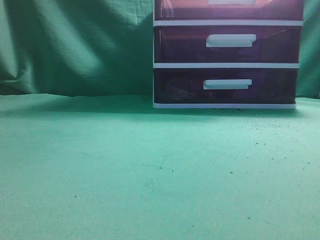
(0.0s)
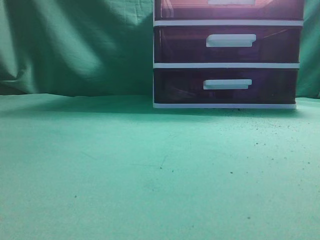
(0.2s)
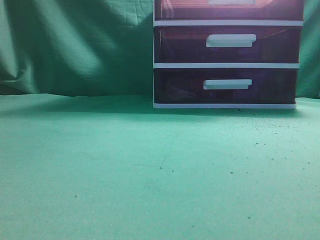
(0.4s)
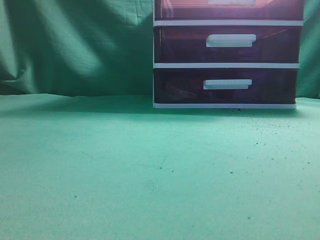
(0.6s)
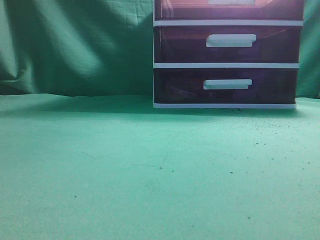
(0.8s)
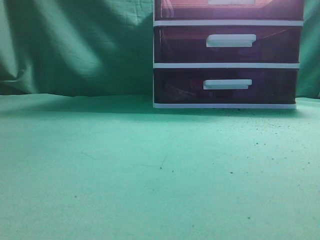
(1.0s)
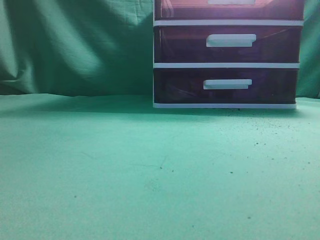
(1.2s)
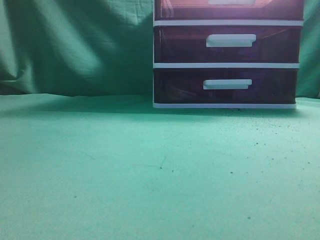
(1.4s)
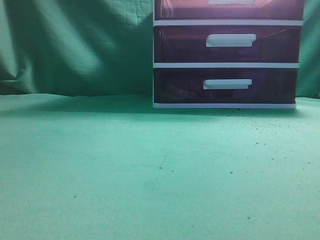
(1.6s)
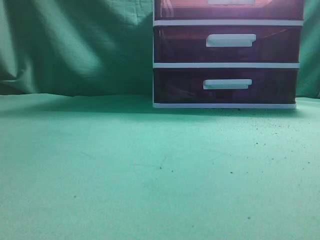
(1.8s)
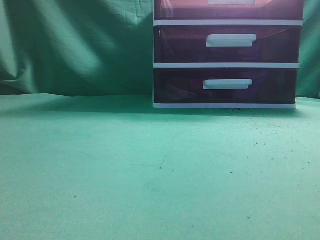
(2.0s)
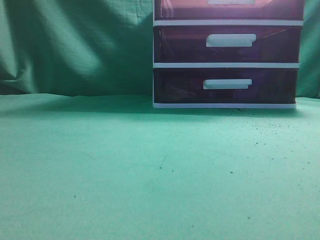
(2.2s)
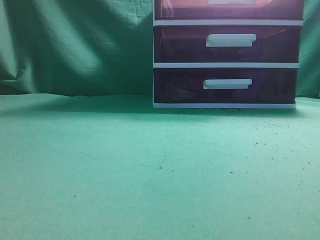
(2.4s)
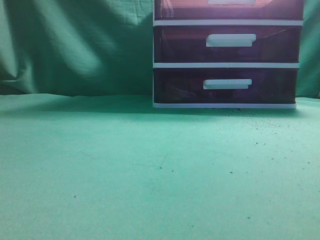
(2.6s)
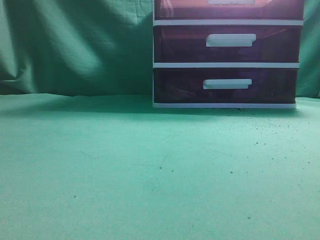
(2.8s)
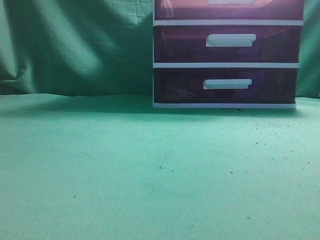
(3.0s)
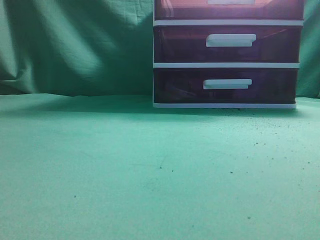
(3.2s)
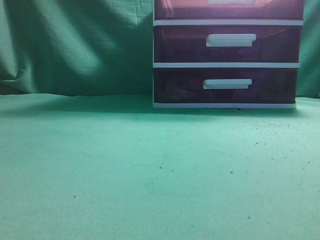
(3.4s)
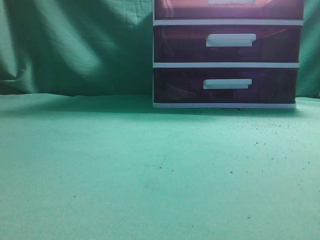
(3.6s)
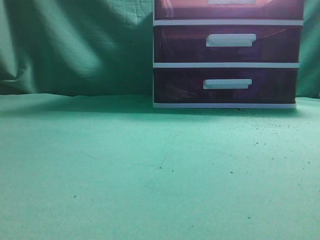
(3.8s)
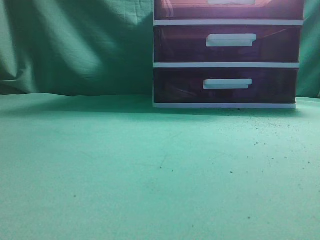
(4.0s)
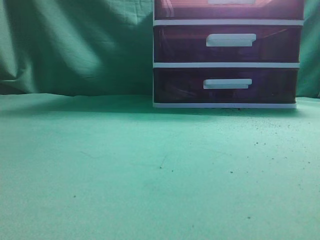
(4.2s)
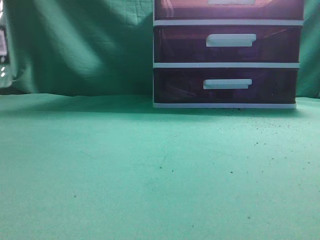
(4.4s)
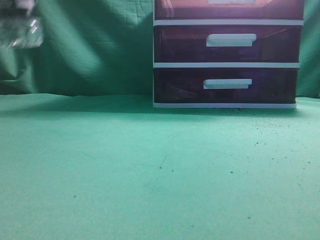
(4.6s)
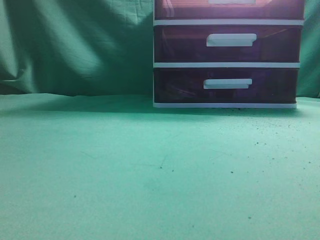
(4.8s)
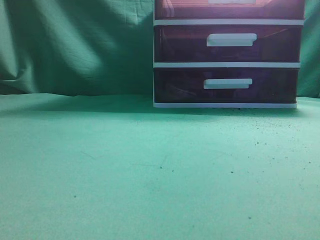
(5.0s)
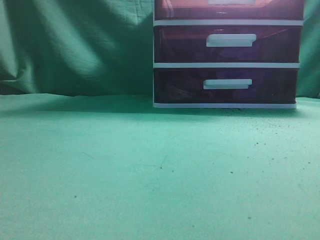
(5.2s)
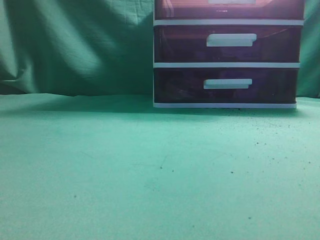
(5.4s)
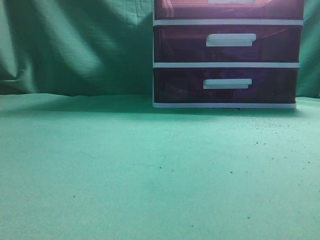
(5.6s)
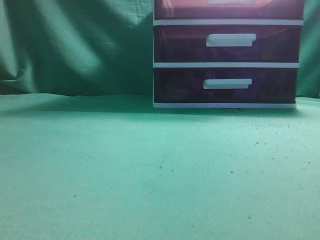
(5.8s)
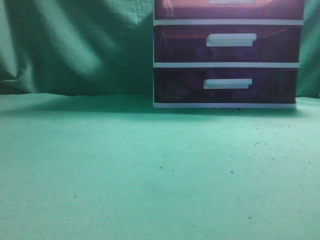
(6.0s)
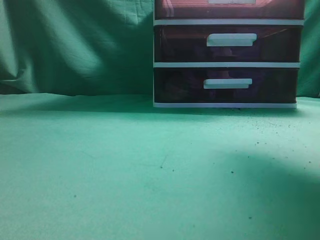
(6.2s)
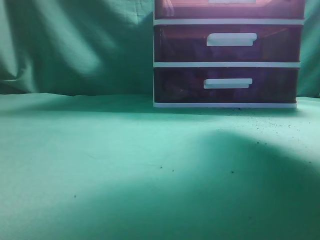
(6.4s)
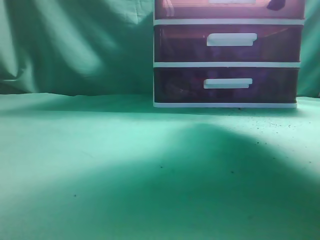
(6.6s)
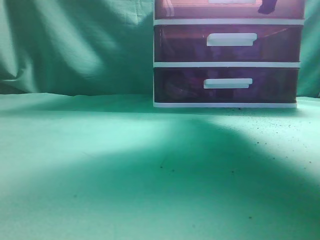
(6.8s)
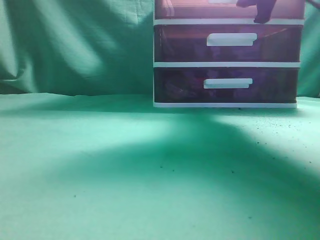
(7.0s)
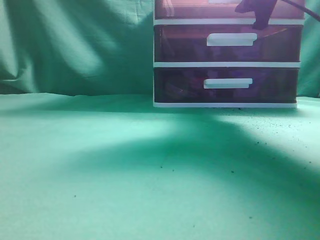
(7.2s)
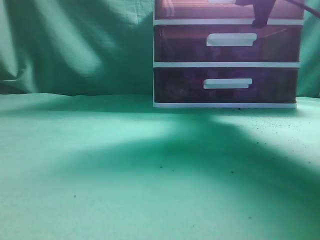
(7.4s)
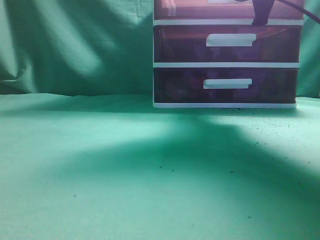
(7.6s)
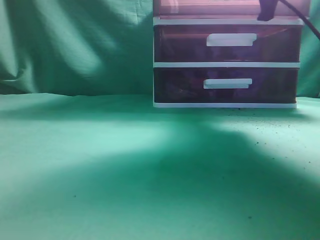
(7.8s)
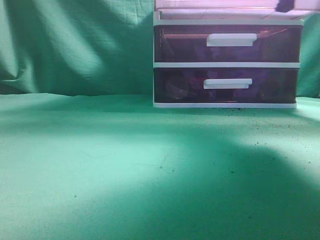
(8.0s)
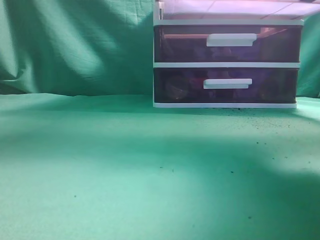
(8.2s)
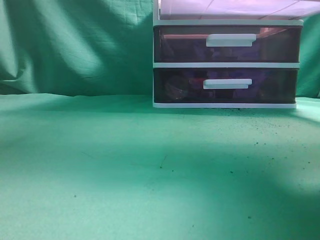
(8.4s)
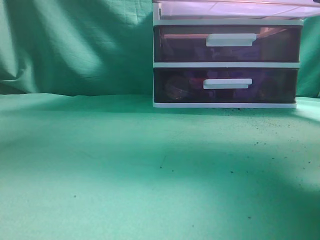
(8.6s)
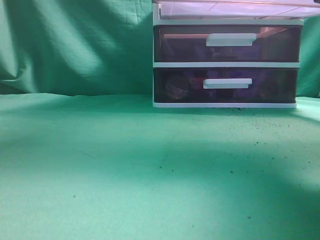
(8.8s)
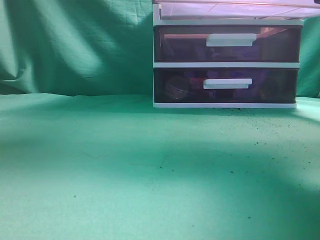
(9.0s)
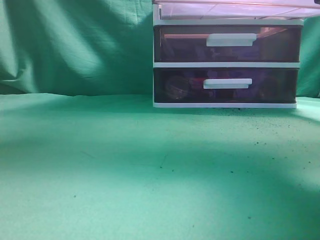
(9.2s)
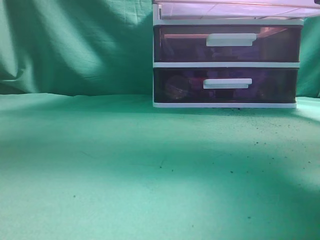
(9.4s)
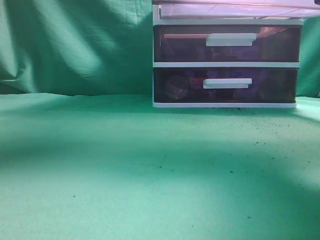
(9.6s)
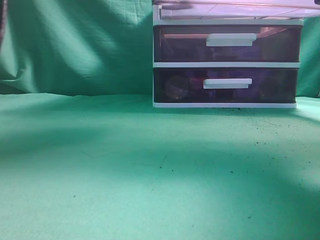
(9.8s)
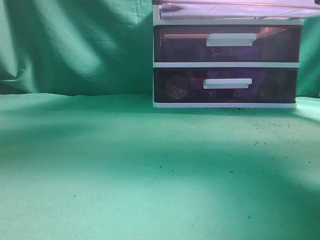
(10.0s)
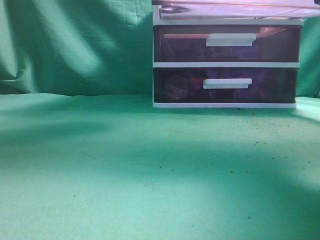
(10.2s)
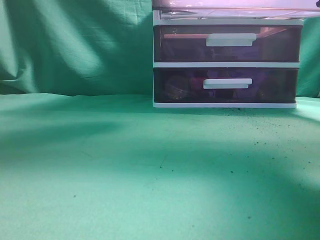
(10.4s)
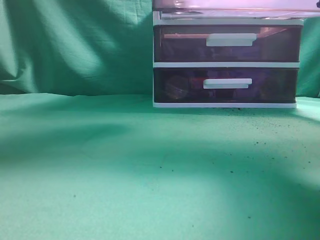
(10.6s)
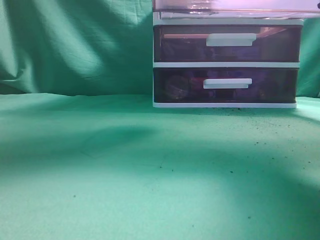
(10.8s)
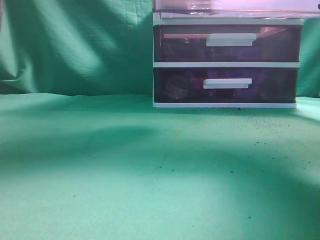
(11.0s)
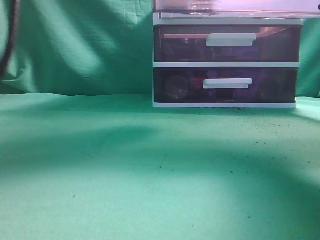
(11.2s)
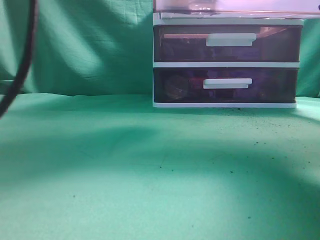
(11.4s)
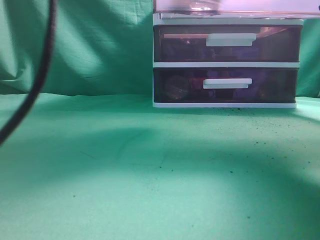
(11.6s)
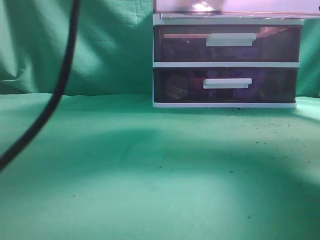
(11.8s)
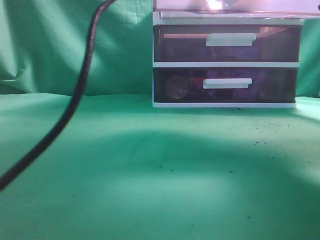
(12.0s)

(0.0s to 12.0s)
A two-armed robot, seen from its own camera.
Task of the whole recording: place the water bottle into the drawer.
Step, 0.0s - 8.4s: Open the drawer.
3.0s - 4.4s: The left gripper goes some 5 cm forward, and closes.
4.4s - 6.0s: The left gripper shifts about 15 cm upward and to the right.
6.0s - 7.6s: The right gripper moves forward, approximately 20 cm, and opens, then closes once more.
7.6s - 9.0s: The right gripper travels backward by approximately 15 cm; the left gripper shifts roughly 10 cm upward.
9.0s - 10.4s: The left gripper shifts roughly 20 cm forward, to the right and downward.
10.4s - 12.0s: The left gripper goes about 15 cm to the right, and opens its fingers.

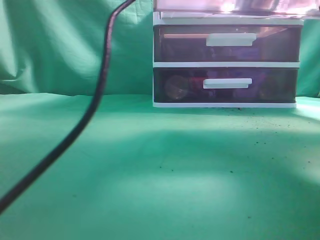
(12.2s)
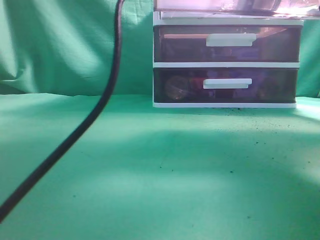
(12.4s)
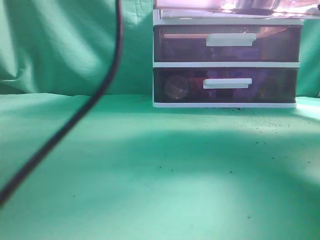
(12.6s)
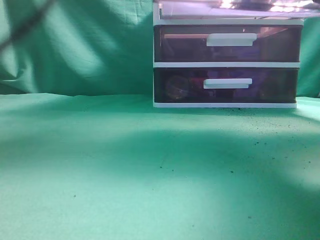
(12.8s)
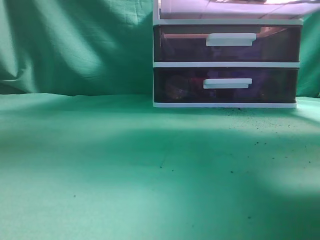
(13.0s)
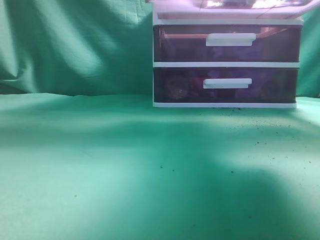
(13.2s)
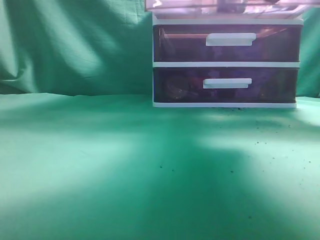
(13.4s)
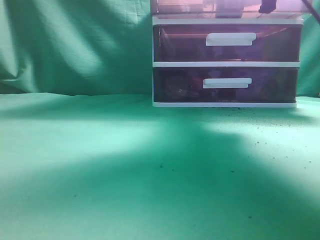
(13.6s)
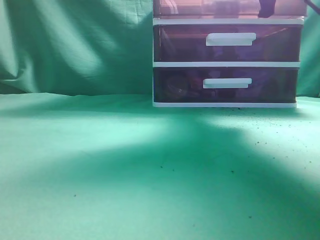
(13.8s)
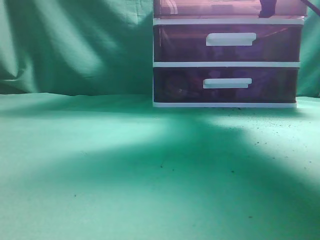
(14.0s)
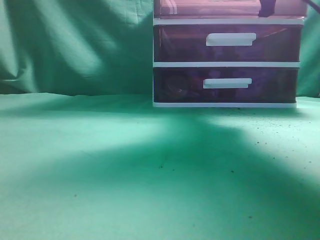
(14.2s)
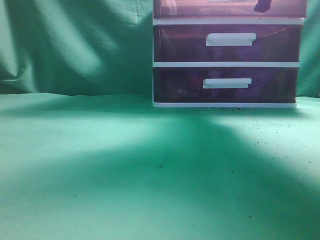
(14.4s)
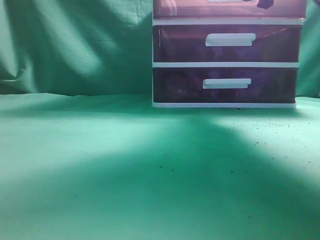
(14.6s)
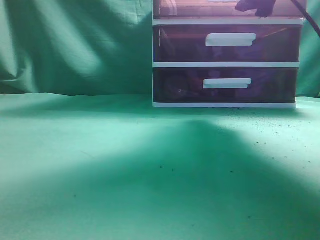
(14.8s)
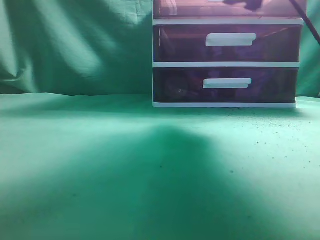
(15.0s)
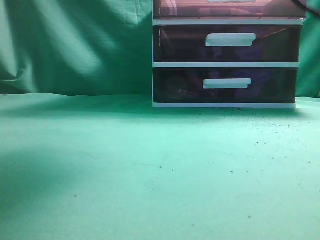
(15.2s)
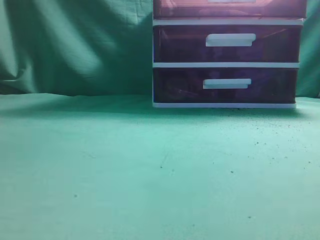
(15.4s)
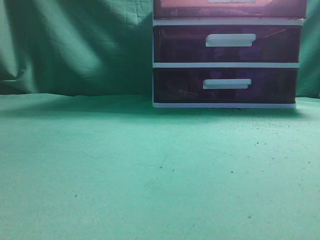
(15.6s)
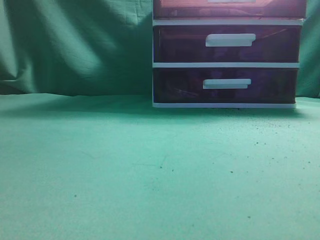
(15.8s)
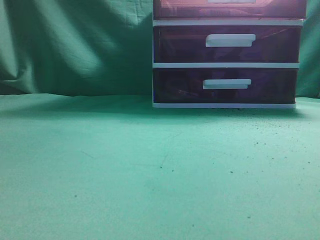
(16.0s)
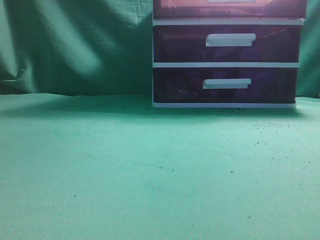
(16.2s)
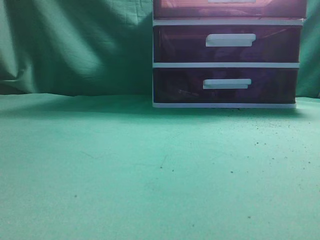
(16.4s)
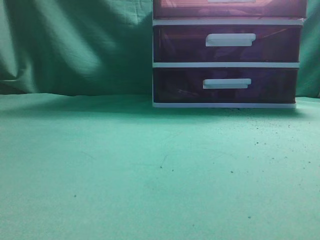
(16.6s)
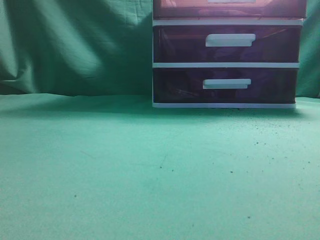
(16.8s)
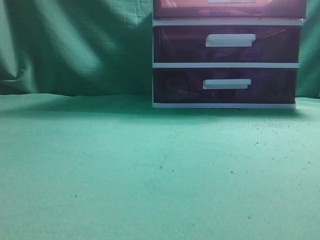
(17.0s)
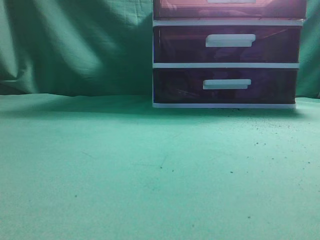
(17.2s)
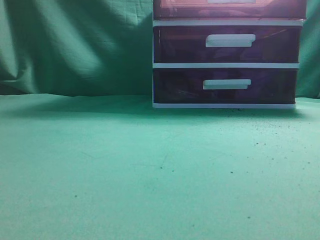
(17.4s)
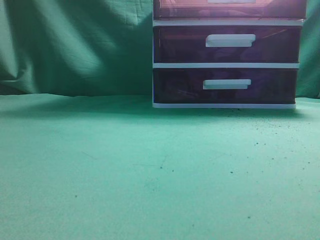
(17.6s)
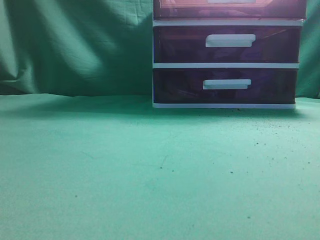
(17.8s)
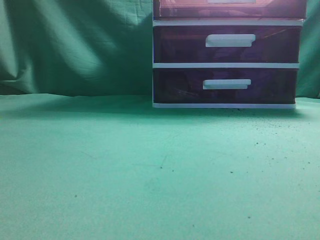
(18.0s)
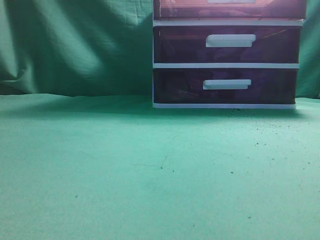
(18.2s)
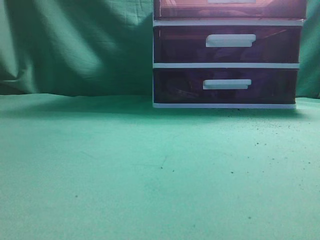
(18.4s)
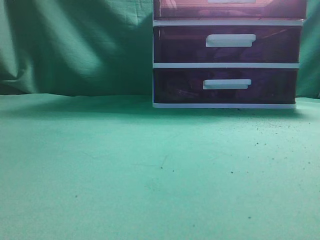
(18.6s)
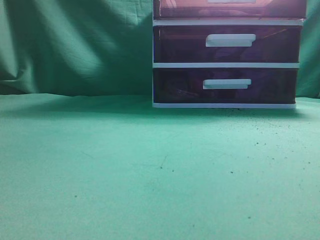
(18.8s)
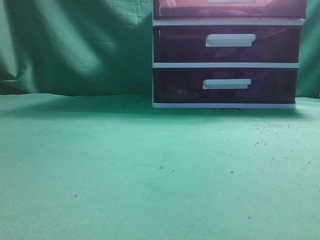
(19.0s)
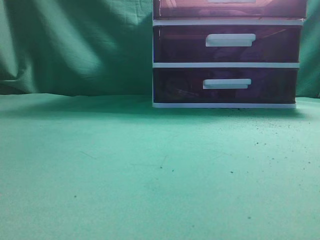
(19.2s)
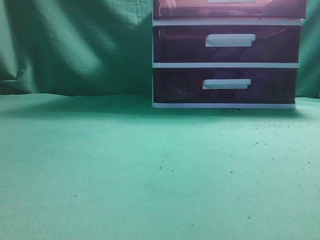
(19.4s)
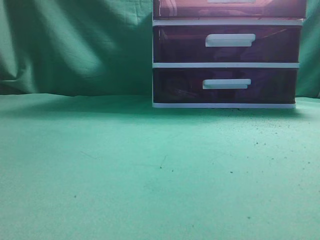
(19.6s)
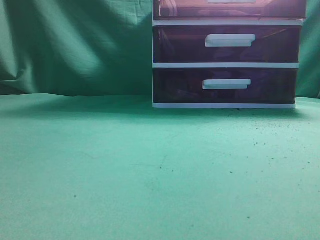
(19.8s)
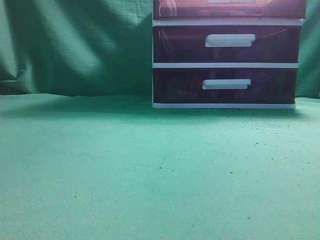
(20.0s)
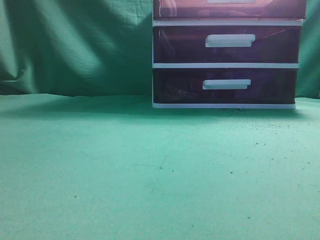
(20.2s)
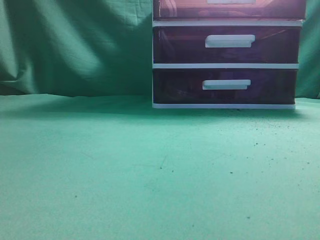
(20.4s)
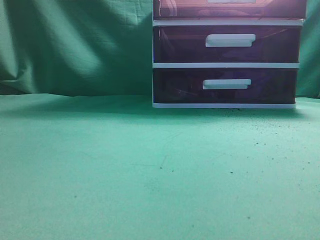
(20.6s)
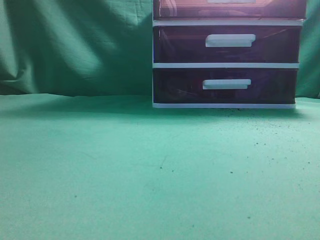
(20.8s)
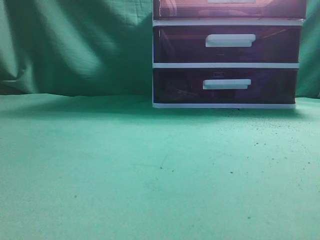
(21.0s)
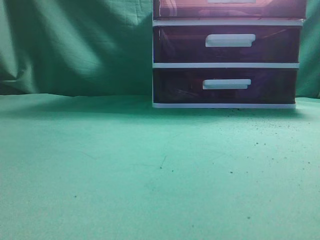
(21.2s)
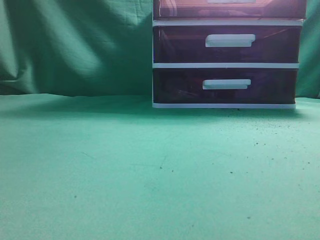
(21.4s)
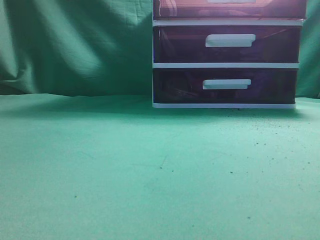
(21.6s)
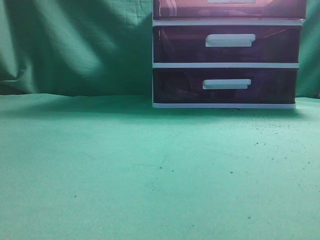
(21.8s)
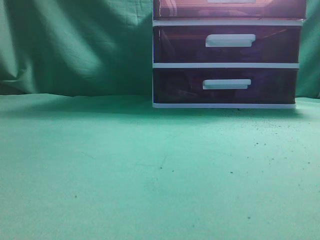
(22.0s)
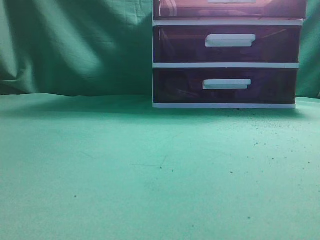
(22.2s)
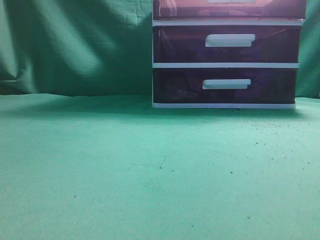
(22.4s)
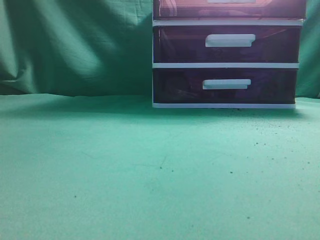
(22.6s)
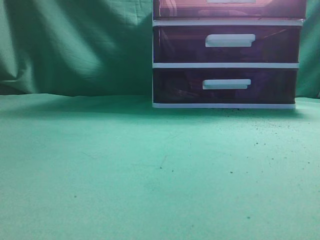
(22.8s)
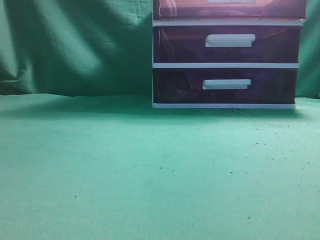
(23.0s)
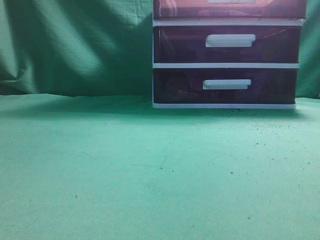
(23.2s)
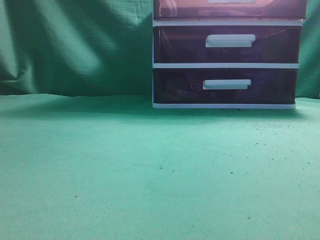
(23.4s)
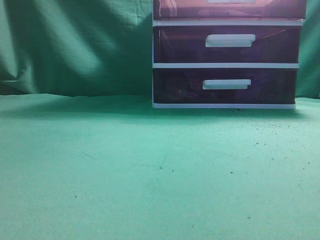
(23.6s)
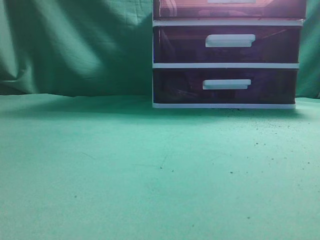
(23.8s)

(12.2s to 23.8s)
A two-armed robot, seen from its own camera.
Task of the whole recording: place the water bottle into the drawer.
Step, 12.8s - 15.0s: Close the drawer.
12.2s - 13.6s: The left gripper moves to the left and upward, roughly 20 cm, and closes up; the right gripper is displaced forward by approximately 15 cm.
13.6s - 15.0s: The right gripper opens.
15.0s - 16.6s: The right gripper moves backward and upward, roughly 30 cm, and closes its fingers. Meanwhile the left gripper travels backward and to the left by about 10 cm, and goes upward and returns, roughly 15 cm each way.
